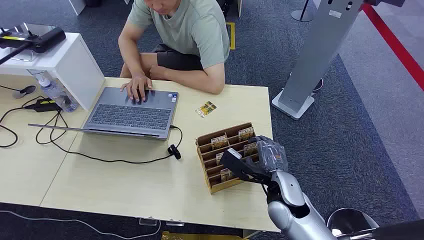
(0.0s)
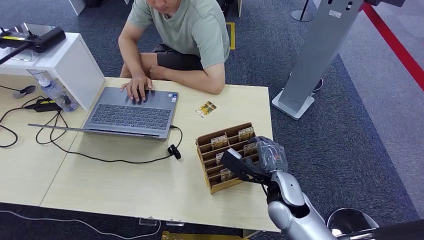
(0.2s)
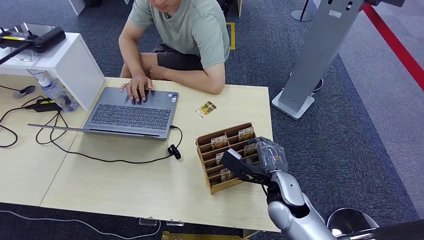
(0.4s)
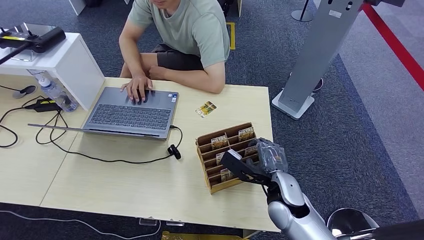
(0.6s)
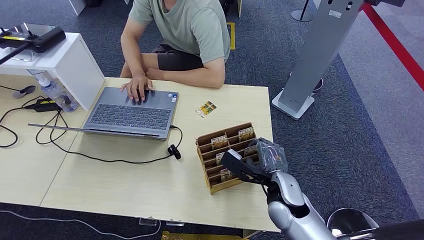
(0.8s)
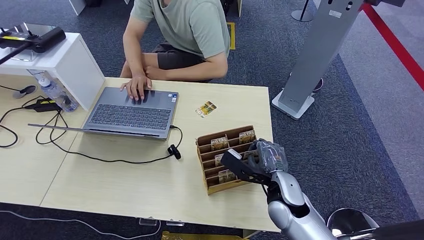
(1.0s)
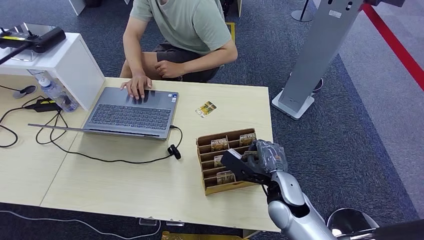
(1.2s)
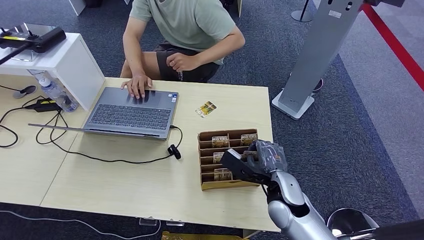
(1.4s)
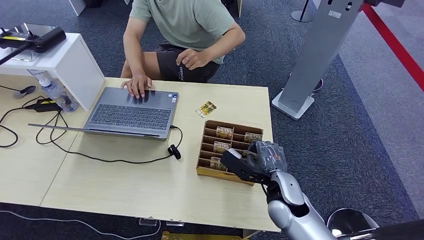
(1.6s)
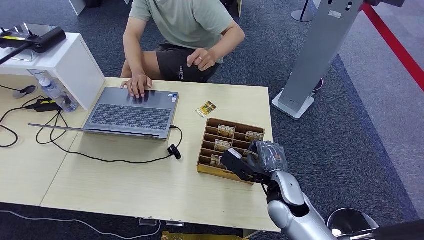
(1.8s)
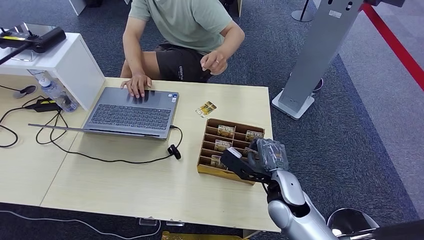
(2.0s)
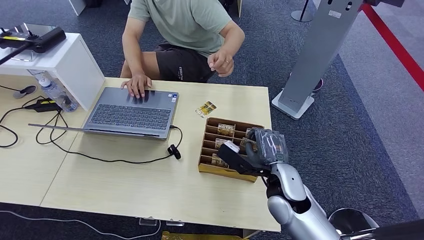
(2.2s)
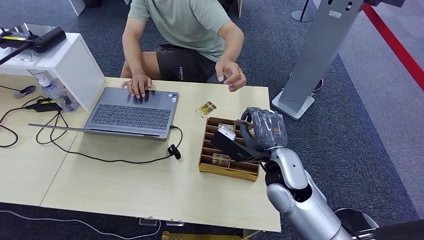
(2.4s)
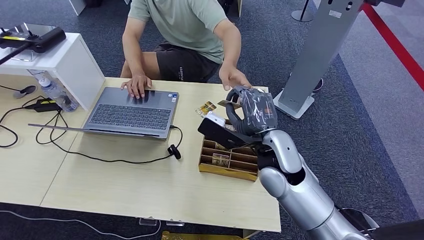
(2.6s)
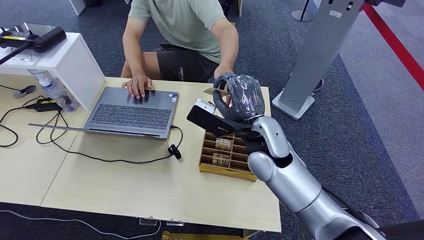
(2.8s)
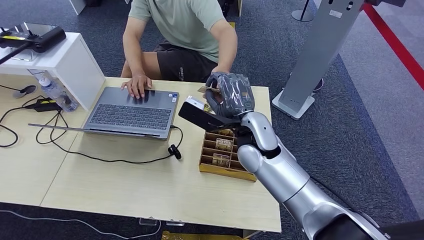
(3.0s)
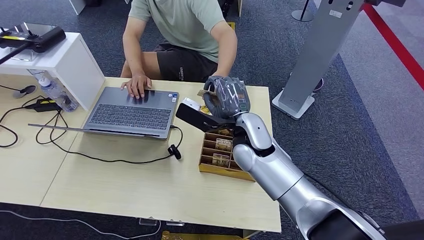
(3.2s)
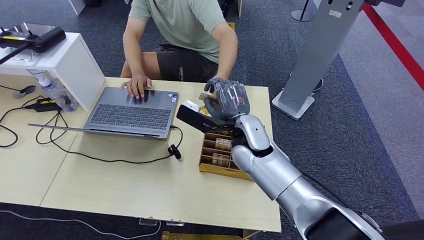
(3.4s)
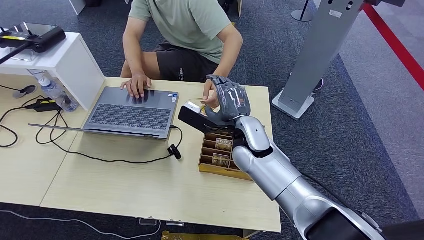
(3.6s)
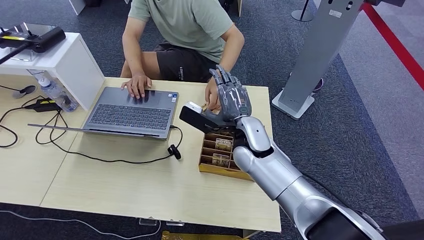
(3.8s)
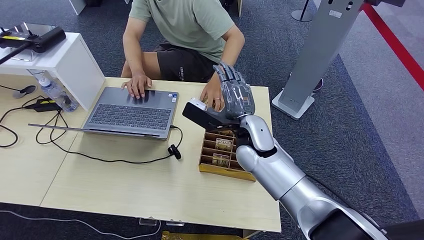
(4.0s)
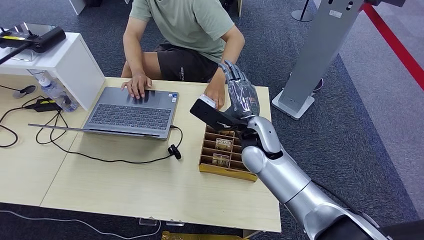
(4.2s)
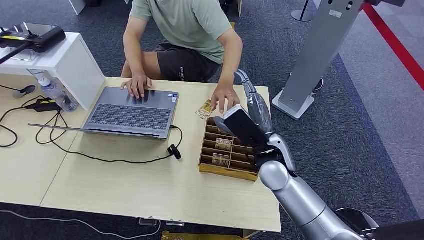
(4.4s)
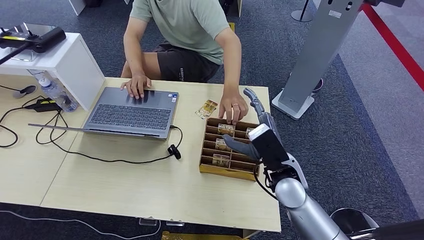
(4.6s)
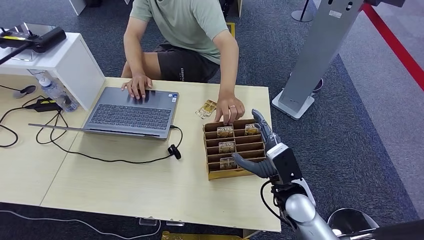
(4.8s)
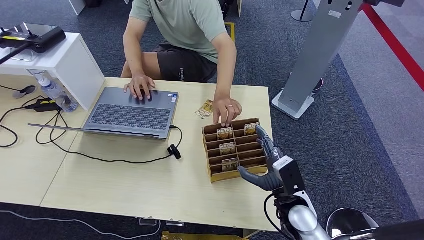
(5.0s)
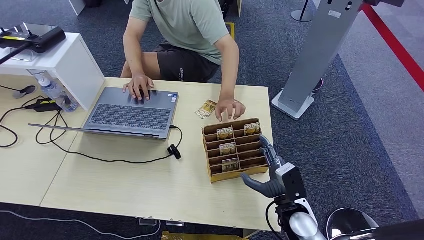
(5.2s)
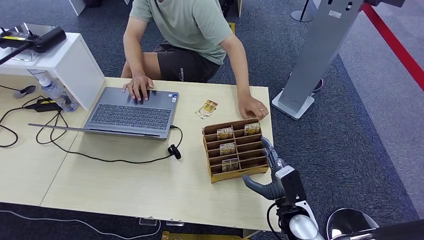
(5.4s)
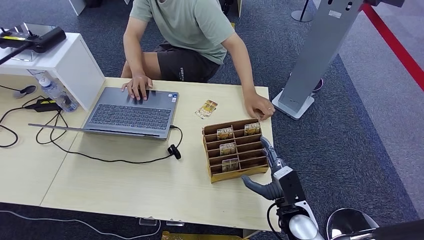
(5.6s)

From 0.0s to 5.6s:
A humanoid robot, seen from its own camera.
Step, from 0.0s to 2.2s: Pick up the room card from the card holder.
Step, from 2.4s to 5.6s: Hand the room card to the target.
From 1.4s to 2.8s: The right hand travels upward and to the left by some 15 cm.
From 2.8s to 4.2s: There are only small adjustments of the hands.
From 4.2s to 5.6s: The right hand moves downward, to the right and backward, approximately 25 cm.

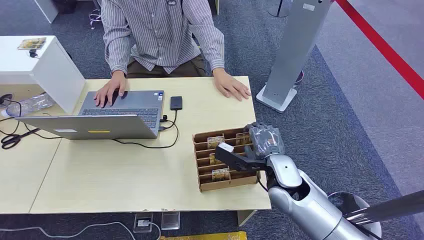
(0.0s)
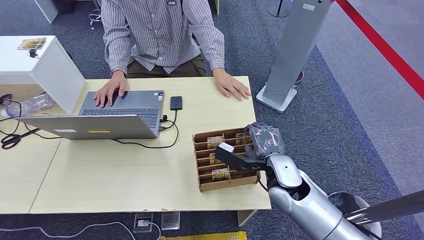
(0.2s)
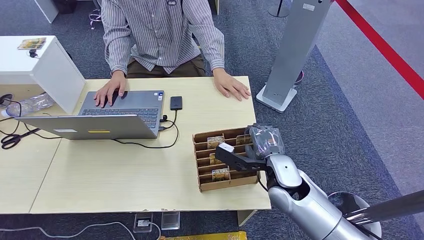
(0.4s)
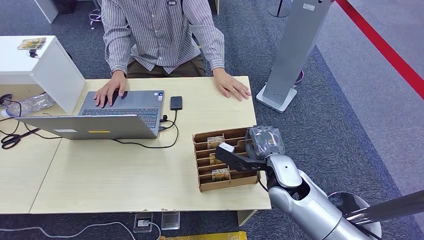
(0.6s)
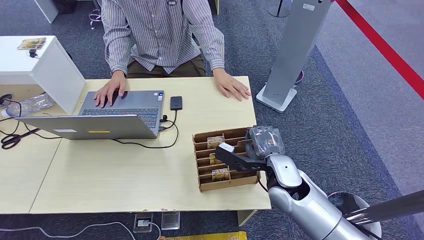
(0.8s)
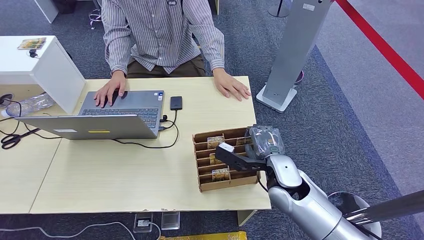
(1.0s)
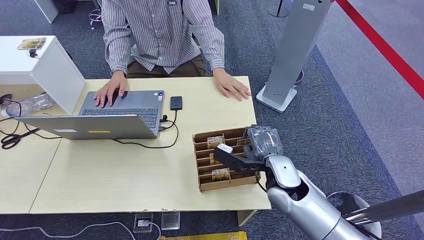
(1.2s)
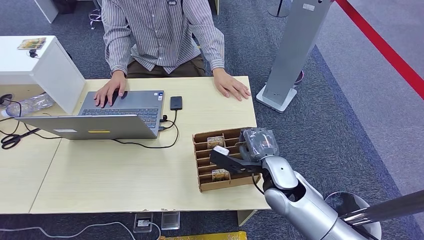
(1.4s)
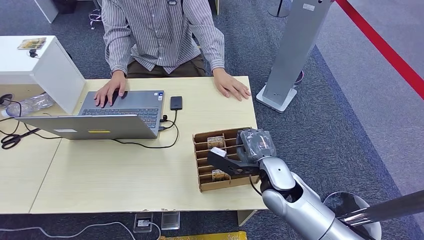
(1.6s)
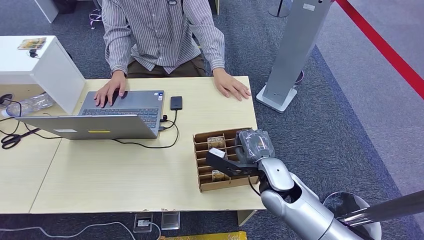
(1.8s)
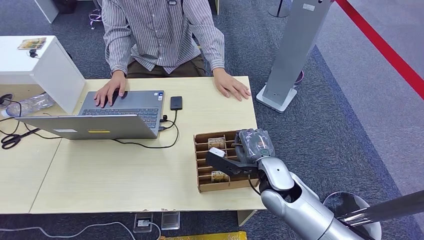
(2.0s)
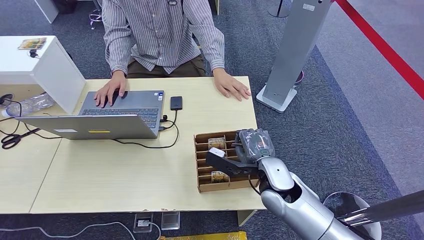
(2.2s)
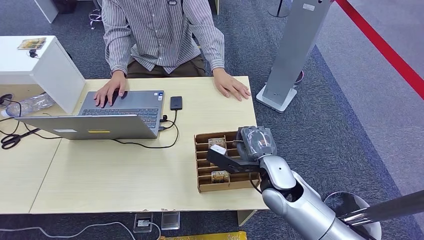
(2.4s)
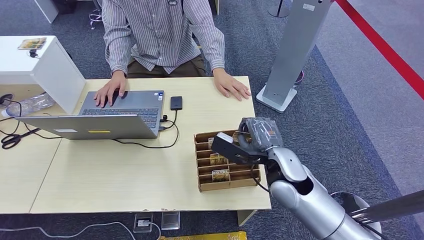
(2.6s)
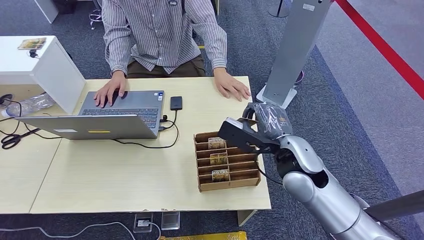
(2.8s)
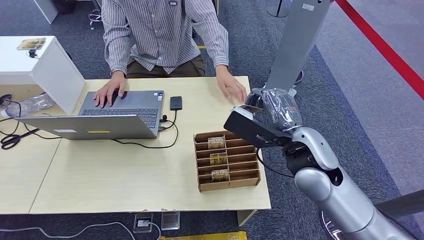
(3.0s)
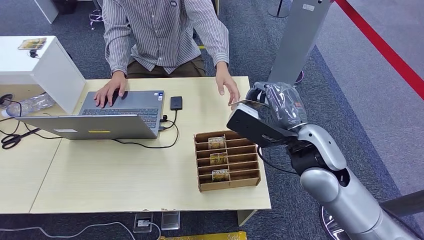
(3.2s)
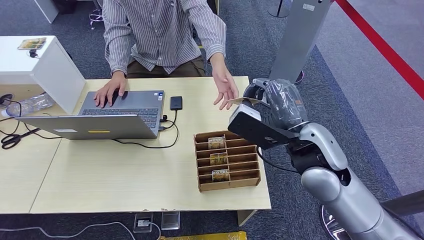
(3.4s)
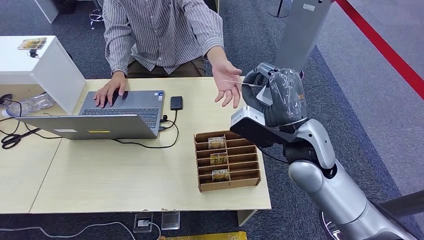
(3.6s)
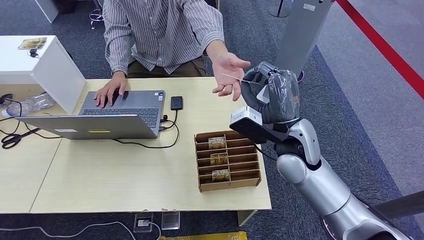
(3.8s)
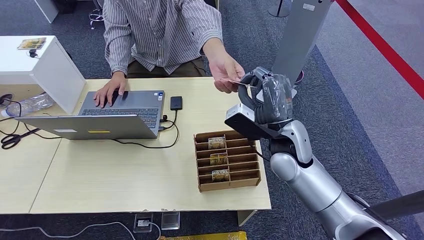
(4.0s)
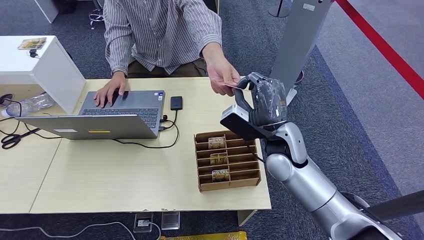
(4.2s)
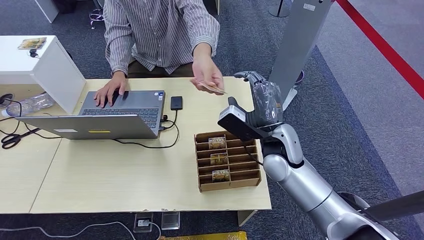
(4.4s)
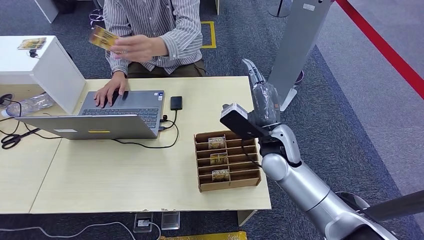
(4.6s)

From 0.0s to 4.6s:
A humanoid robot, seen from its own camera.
Step, from 0.0s to 2.6s: Pick up the room card from the card holder.
Step, from 3.6s to 4.6s: Hand the room card to the target.
From 1.6s to 3.0s: The right hand shifts about 10 cm upward.
From 3.0s to 4.6s: The right hand moves downward and forward, approximately 10 cm.

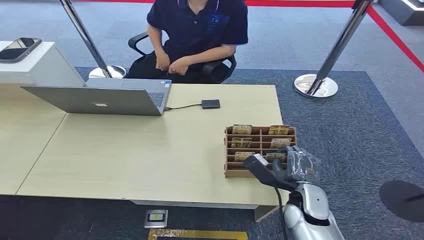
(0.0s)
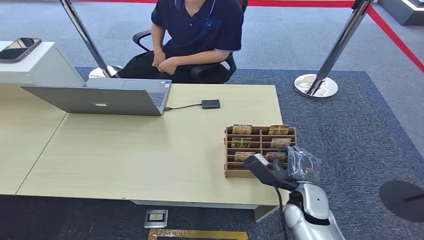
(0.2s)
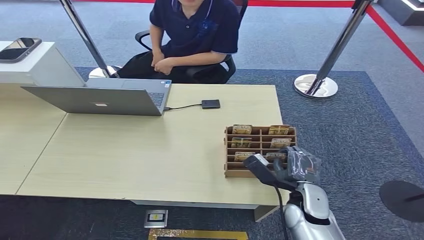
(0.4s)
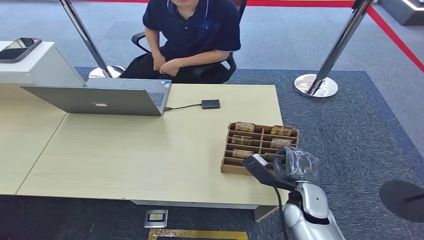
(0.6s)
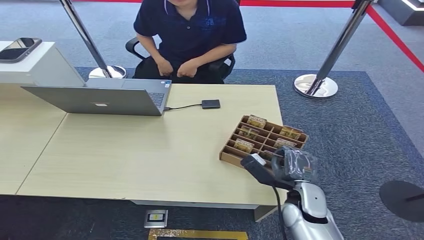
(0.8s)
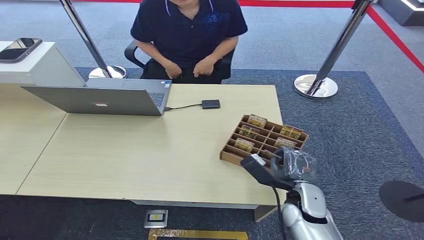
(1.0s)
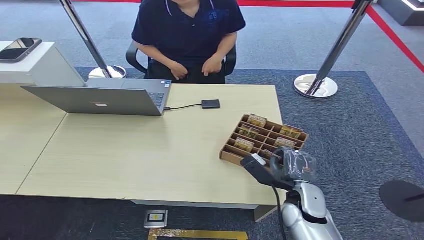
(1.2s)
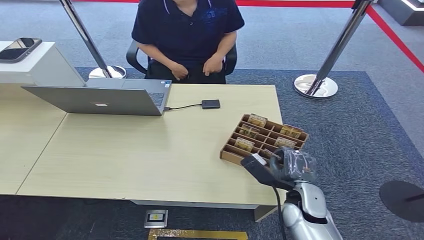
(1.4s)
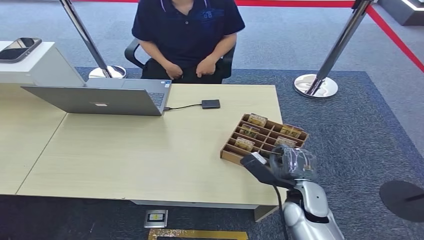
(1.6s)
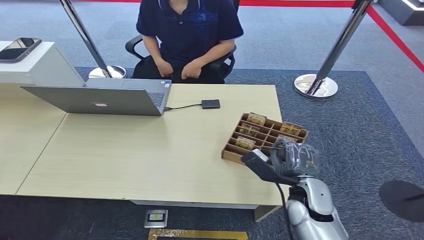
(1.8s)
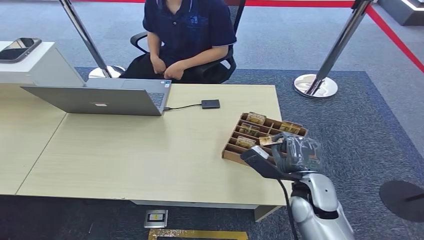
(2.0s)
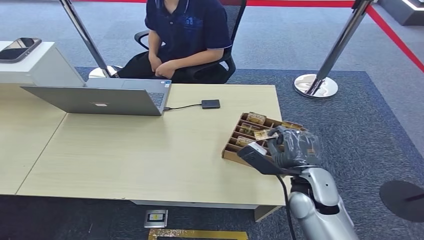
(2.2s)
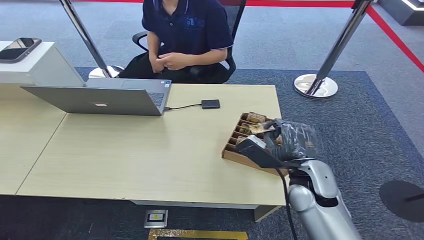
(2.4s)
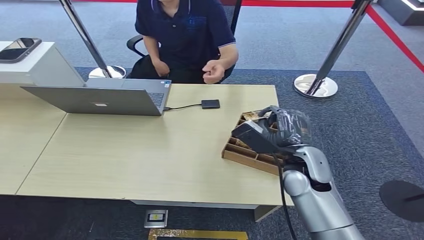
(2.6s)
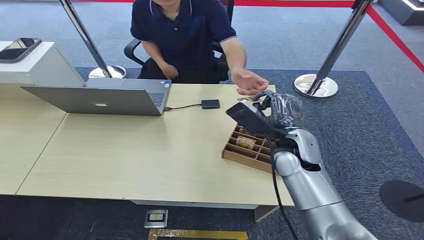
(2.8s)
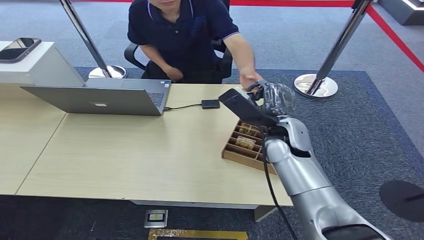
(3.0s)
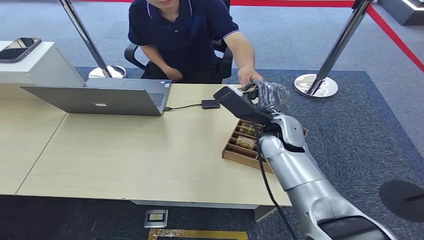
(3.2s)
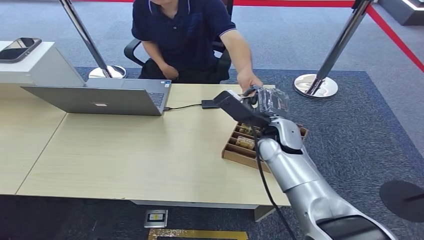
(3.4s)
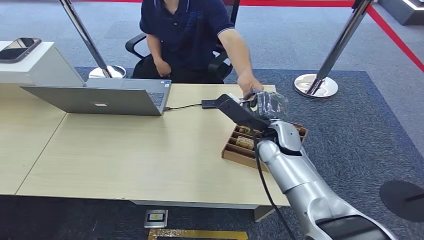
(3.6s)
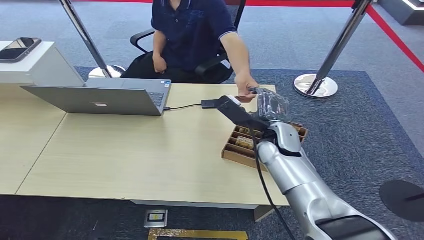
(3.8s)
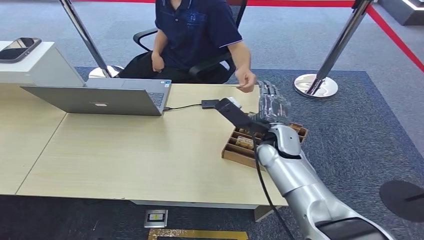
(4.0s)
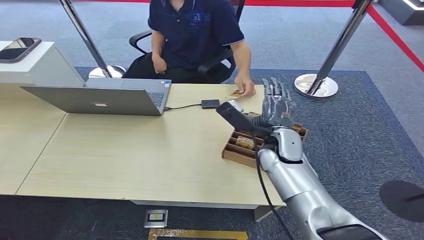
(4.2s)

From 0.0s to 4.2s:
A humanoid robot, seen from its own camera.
Step, from 0.0s to 2.4s: Pick up the room card from the card holder.
Step, from 2.6s to 4.2s: Hand the room card to the target.
From 1.4s to 2.8s: The right hand shifts about 15 cm upward and forward.
From 2.8s to 4.2s: The hands stay close to where they were, moving slightly.

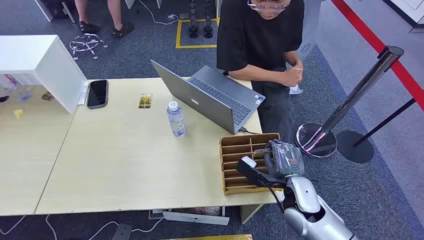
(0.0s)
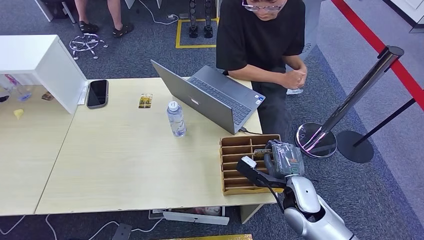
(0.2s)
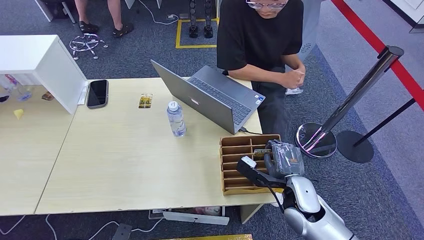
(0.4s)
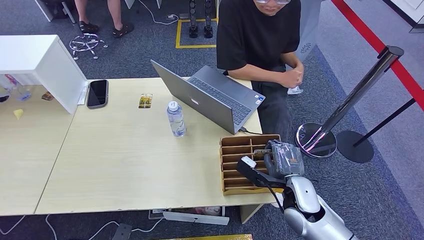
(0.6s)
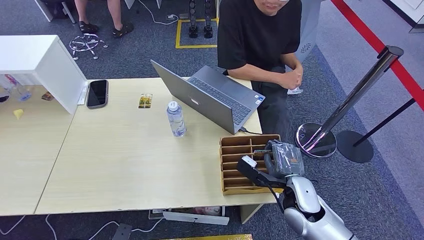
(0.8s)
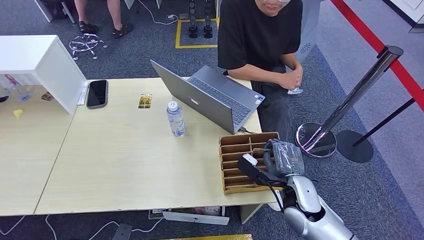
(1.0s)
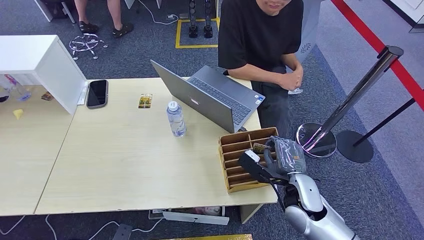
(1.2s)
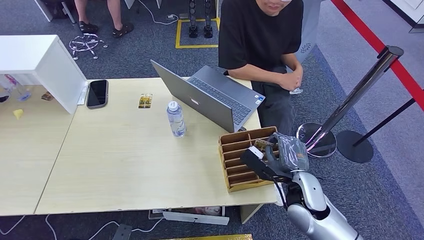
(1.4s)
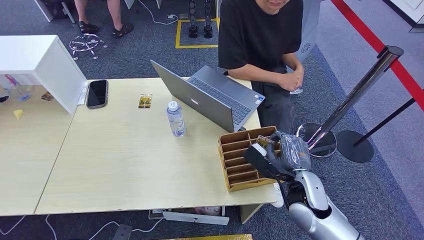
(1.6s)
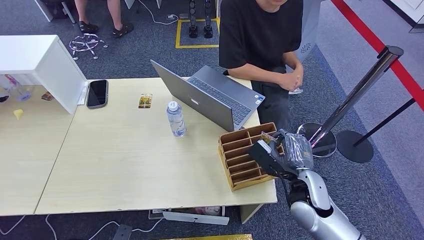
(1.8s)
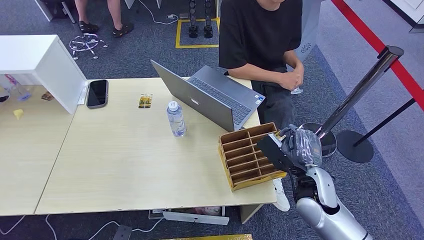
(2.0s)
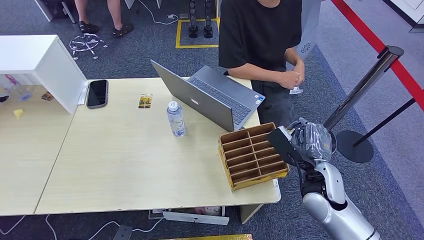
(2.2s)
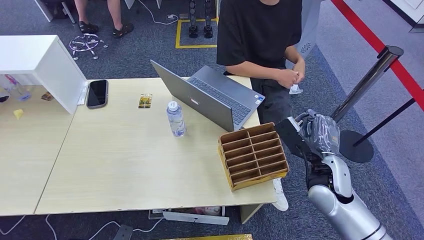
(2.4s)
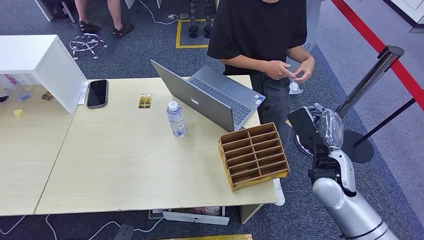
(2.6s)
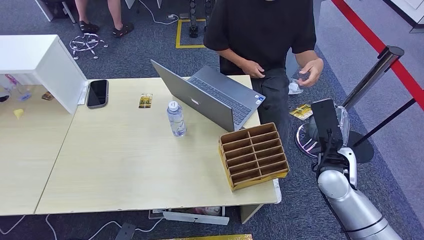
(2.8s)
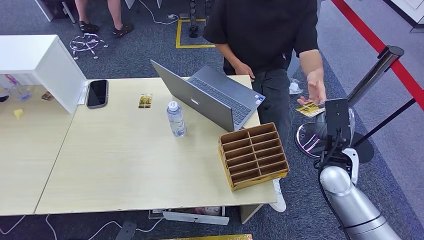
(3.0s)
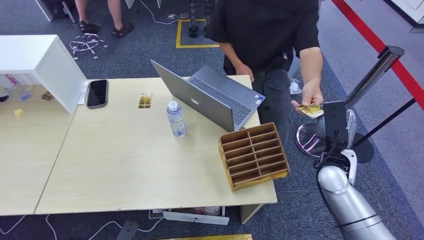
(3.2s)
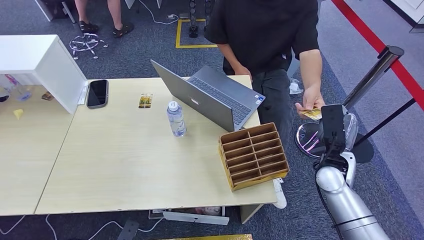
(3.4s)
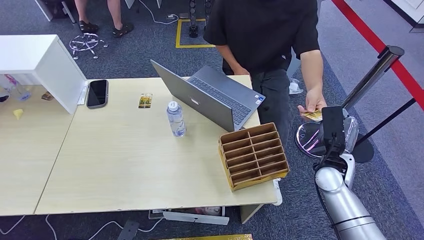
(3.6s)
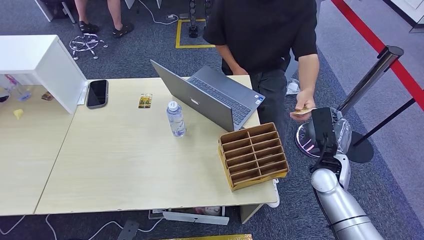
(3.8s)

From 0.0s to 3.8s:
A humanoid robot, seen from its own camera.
Step, from 0.0s to 1.6s: Pick up the room card from the card holder.
From 1.2s to 2.6s: The right hand moves upward and to the right, approximately 10 cm.
From 2.6s to 3.8s: The right hand is displaced downward by about 5 cm.
